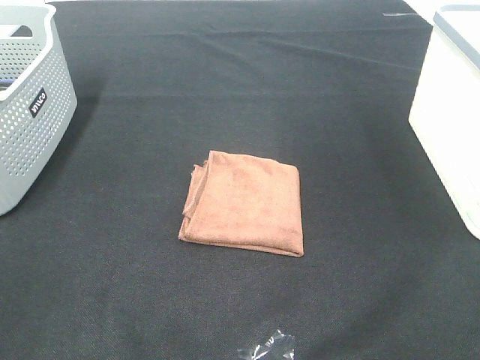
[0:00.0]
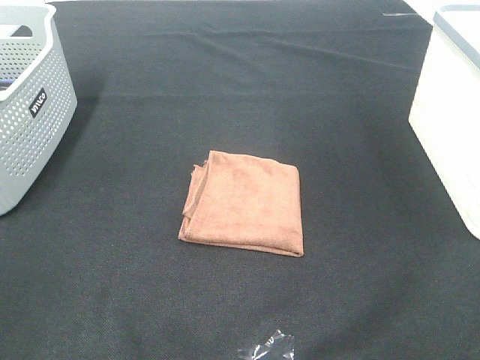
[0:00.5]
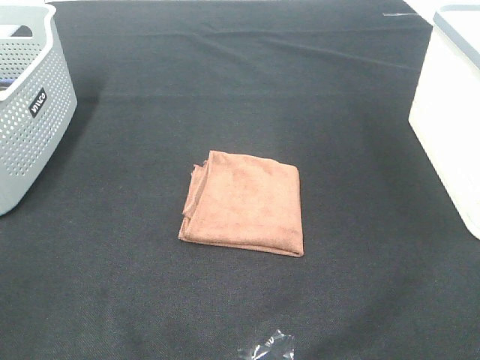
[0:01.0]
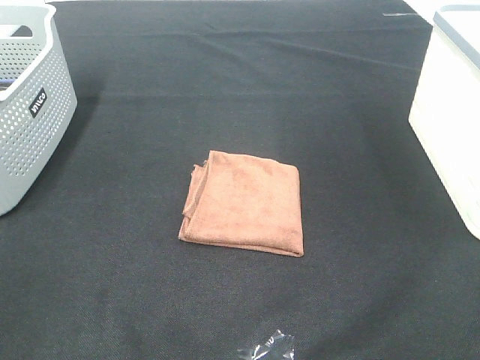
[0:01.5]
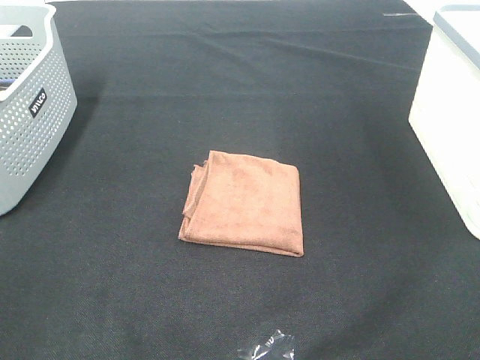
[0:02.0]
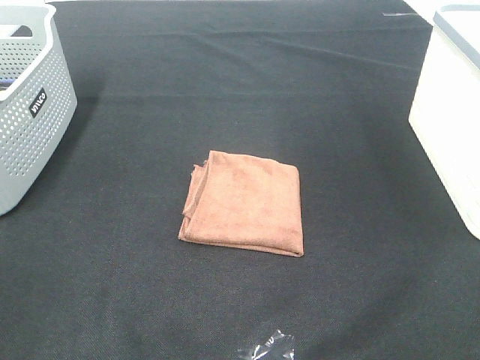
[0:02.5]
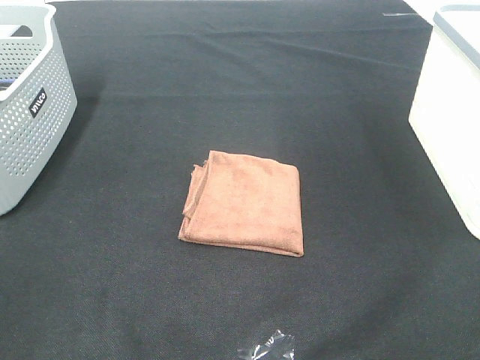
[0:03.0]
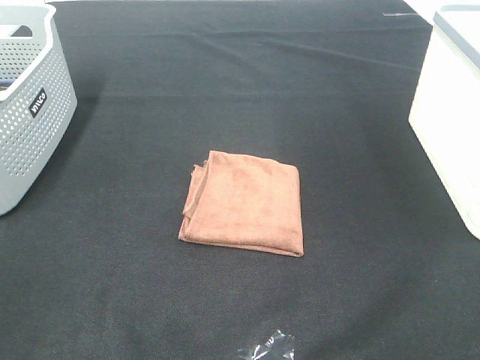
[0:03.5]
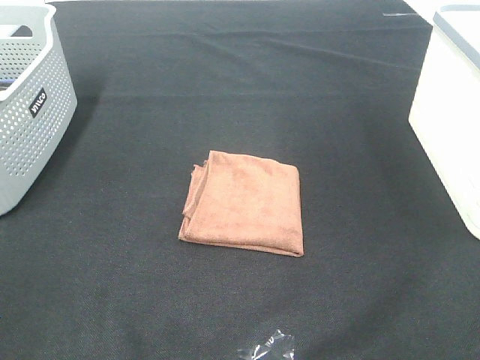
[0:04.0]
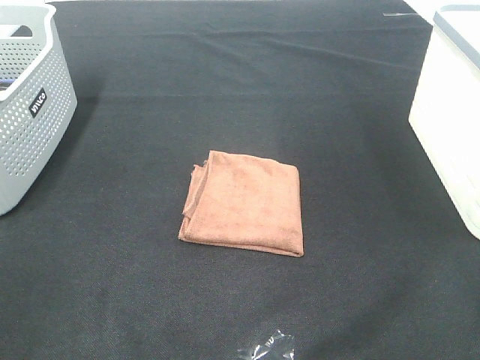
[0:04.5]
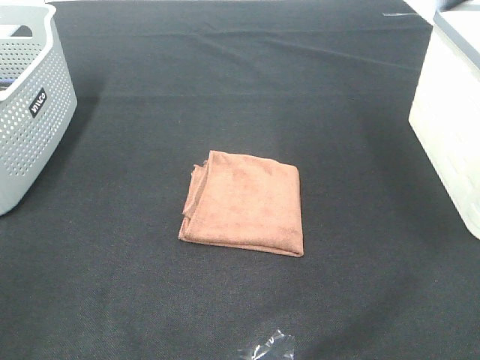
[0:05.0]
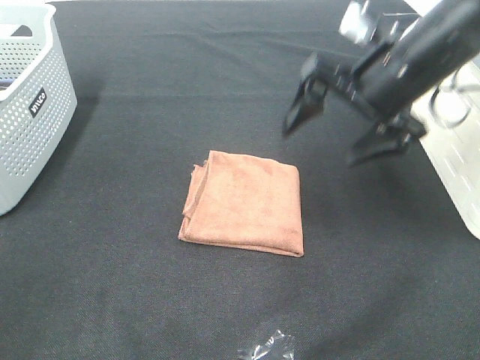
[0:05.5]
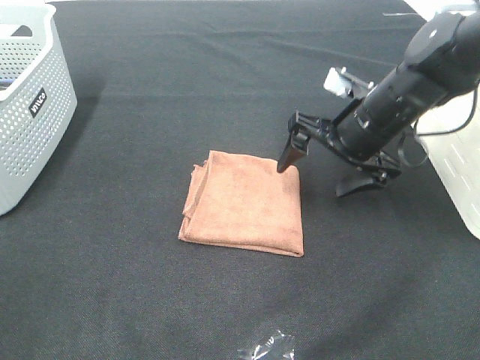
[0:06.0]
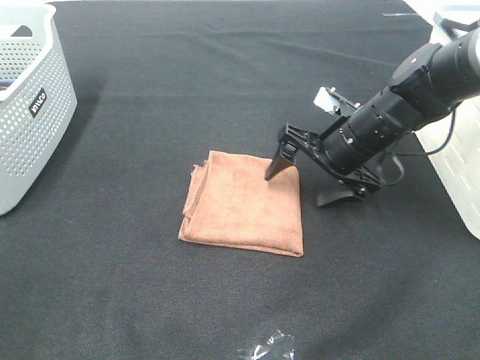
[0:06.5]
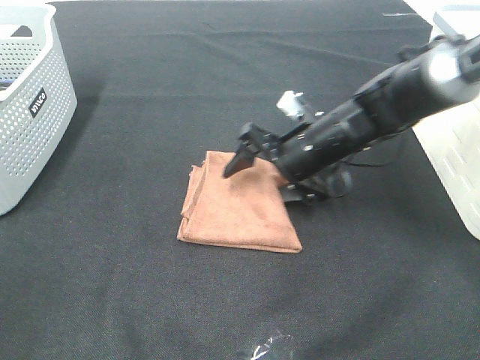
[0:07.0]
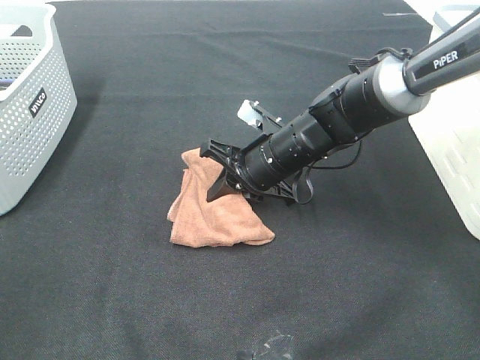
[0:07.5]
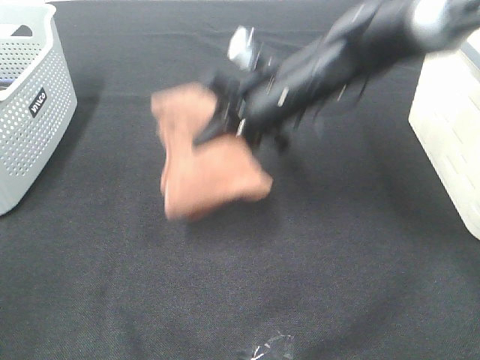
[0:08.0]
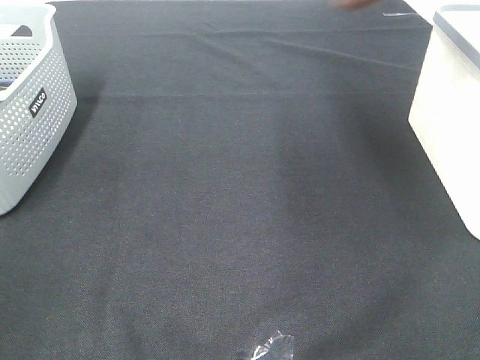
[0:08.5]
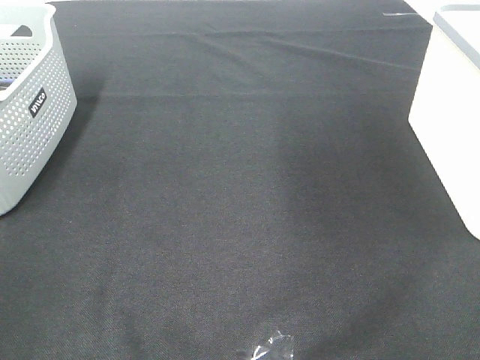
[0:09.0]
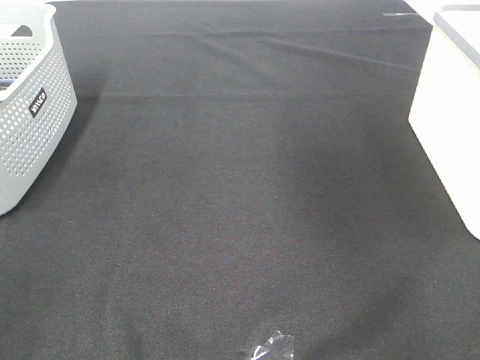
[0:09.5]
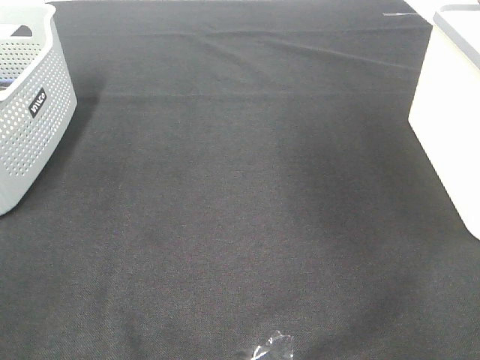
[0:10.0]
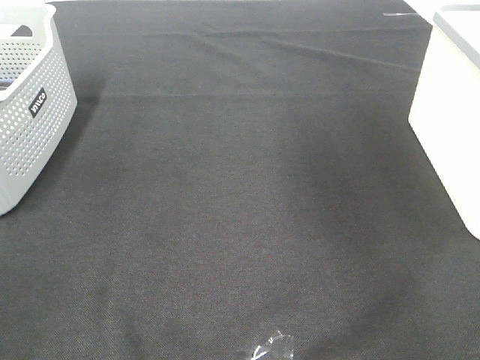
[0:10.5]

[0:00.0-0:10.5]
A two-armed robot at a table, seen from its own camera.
Step, 0.0 to 7.5 s: Right hand: grab the folded brown towel.
Step, 8.0 to 10.5 s: Right hand: place the brown towel in right basket.
0.0 to 2.0 s: Neither gripper changes place.
4.0 to 6.5 s: The right gripper goes approximately 40 cm forward, downward and to the left.
6.5 to 8.5 s: The right gripper moves upward, about 35 cm, and closes up.
8.5 to 10.5 s: The right gripper heads to the right, downward and forward, covering roughly 15 cm, and opens.

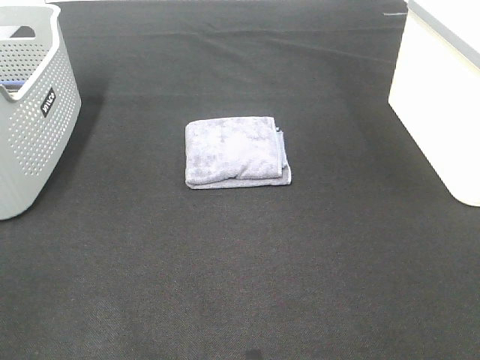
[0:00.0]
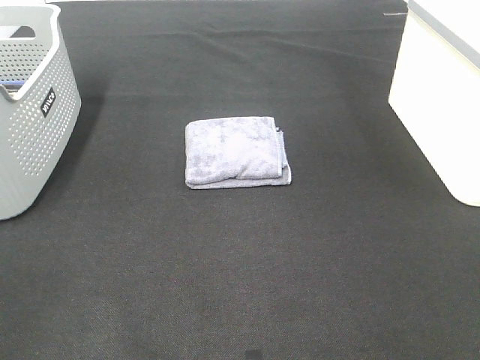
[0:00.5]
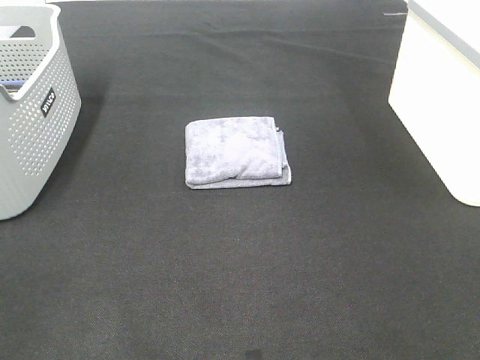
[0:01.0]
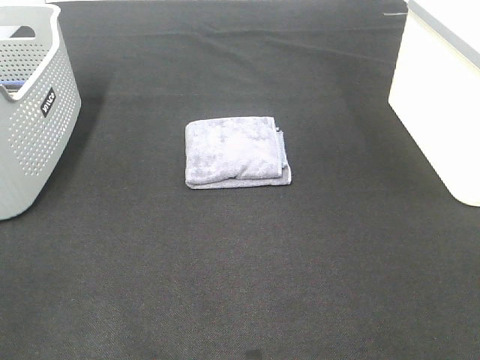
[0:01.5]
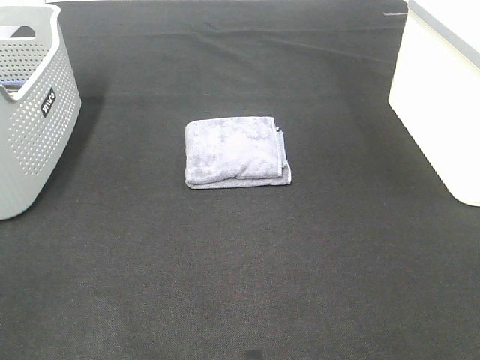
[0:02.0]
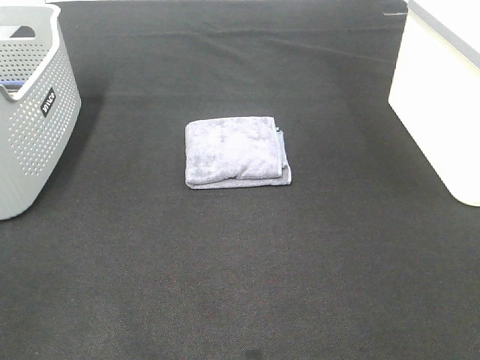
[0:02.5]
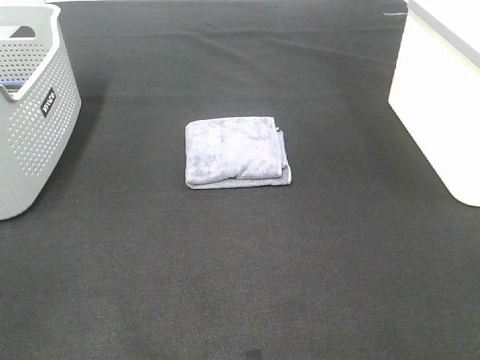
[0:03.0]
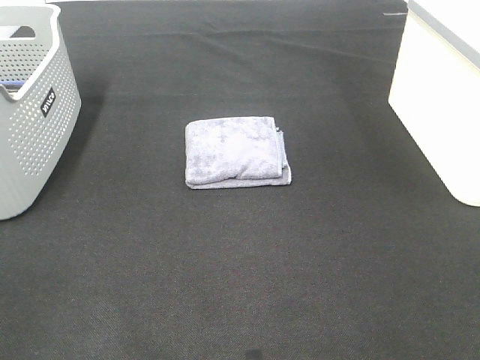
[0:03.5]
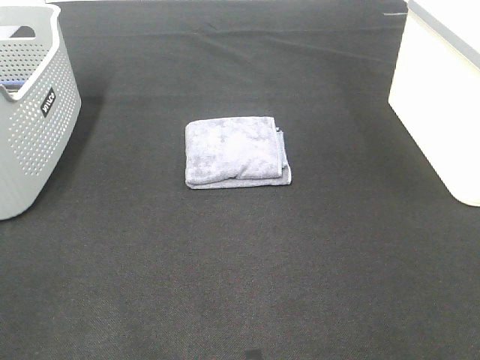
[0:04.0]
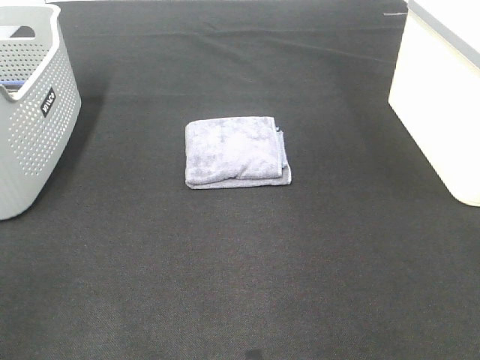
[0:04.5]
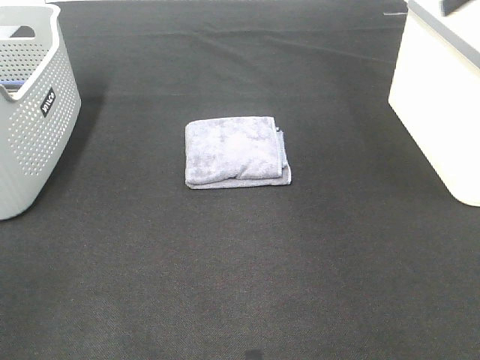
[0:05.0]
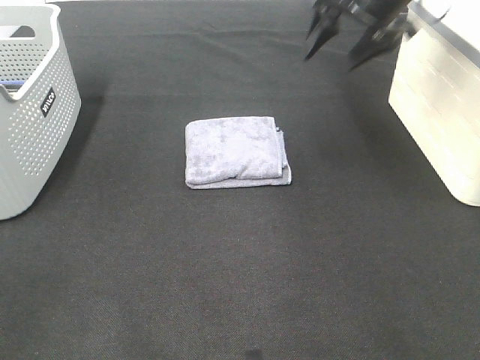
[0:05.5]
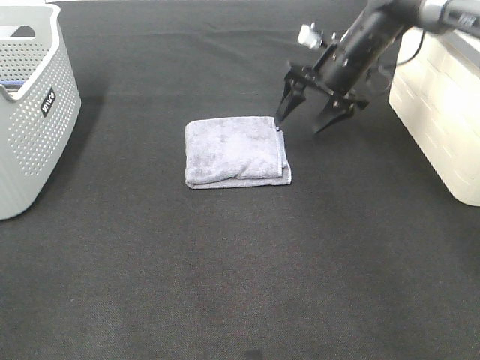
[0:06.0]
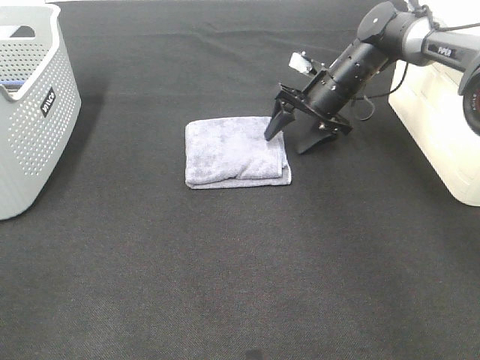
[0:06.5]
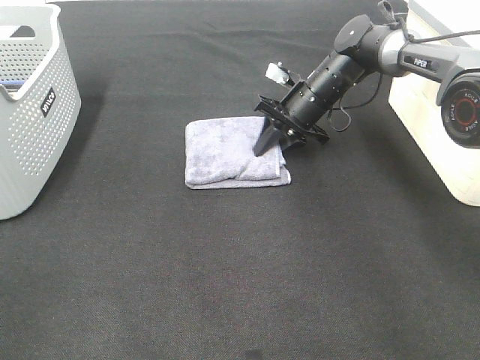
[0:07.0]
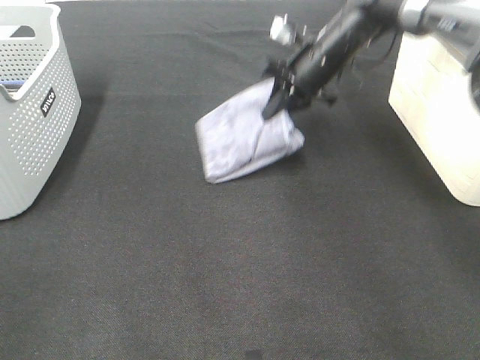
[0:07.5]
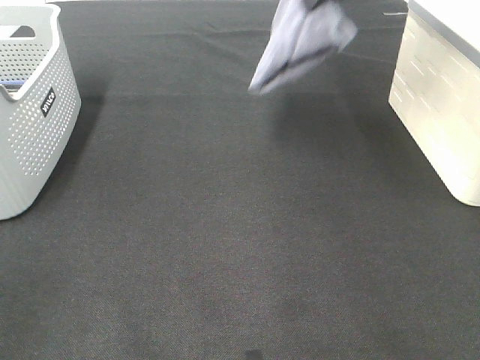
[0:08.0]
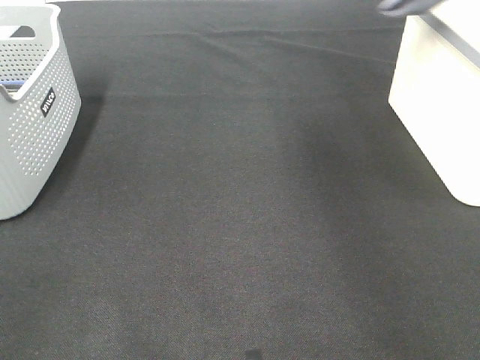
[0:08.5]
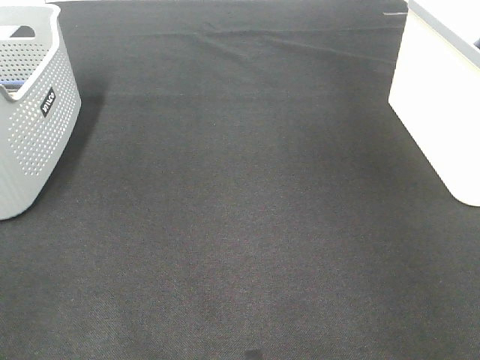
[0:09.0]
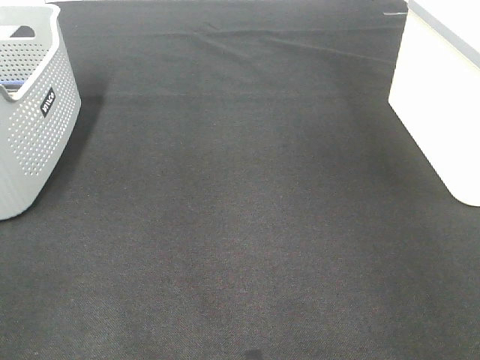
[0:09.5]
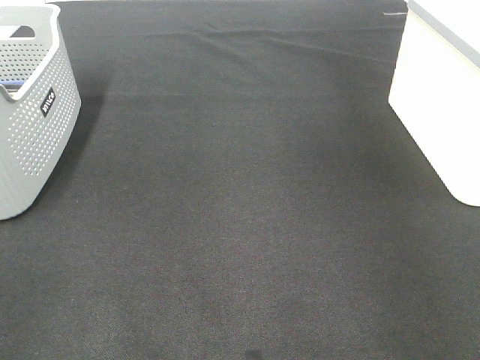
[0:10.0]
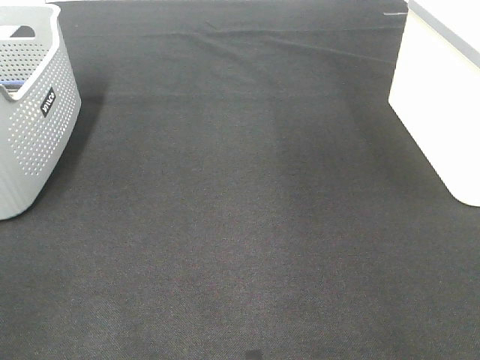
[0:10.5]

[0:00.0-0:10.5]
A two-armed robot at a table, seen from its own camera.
Step, 0.0 to 7.0 s: Right hand: grab the folded grey towel.
Step, 7.5 to 9.5 s: Right hand: place the grey towel in right basket.
0.0 to 2.0 s: Both grippers stay put.
4.0 to 6.5 s: The right gripper moves forward and downward, about 50 cm.
6.5 to 8.5 s: The right gripper heads upward and to the right, covering approximately 35 cm, and closes.
8.5 to 10.5 s: The right gripper goes some 5 cm to the left, and opens its fingers.

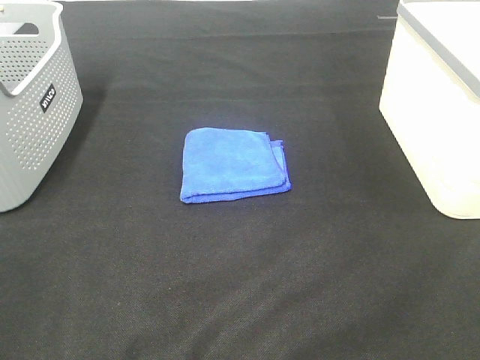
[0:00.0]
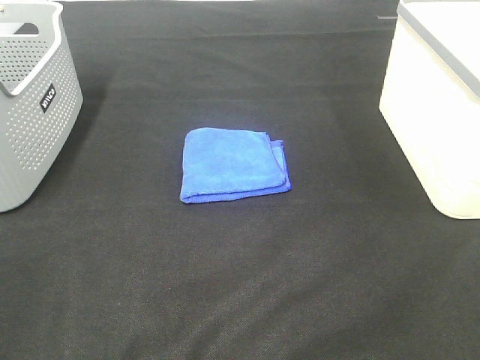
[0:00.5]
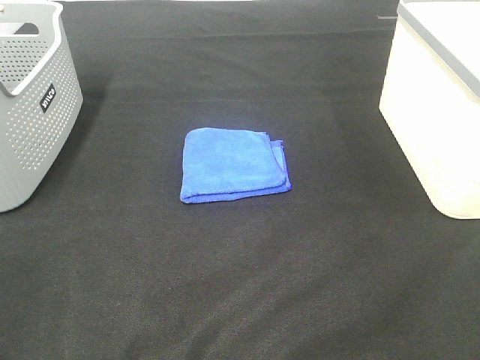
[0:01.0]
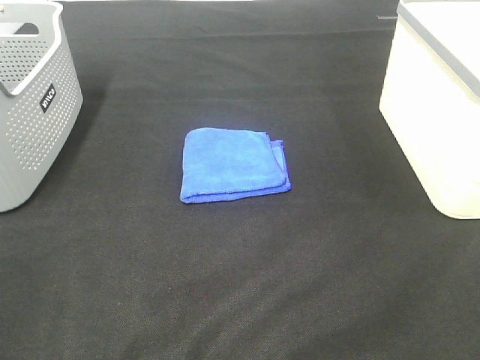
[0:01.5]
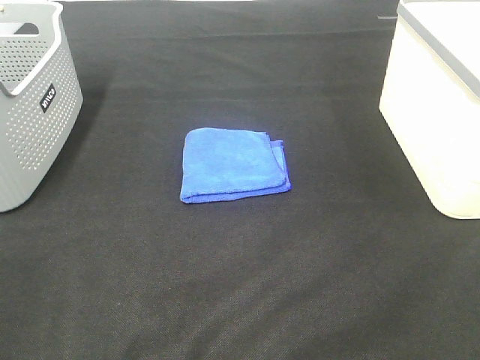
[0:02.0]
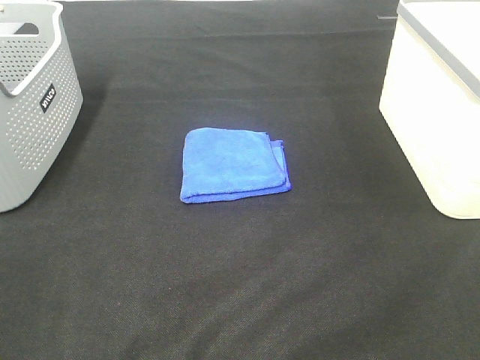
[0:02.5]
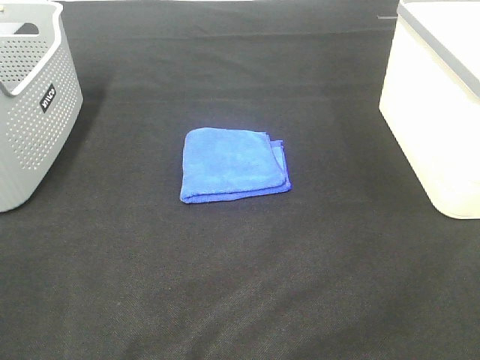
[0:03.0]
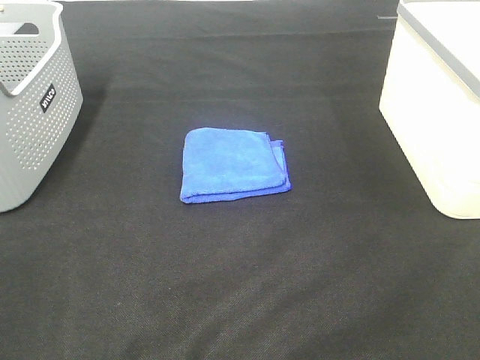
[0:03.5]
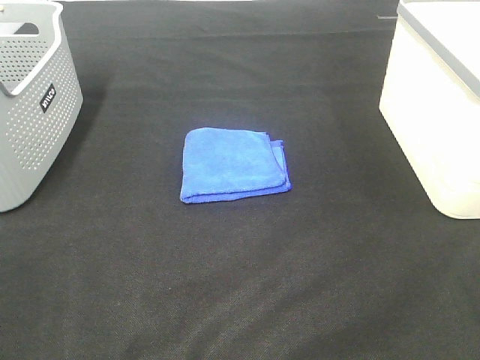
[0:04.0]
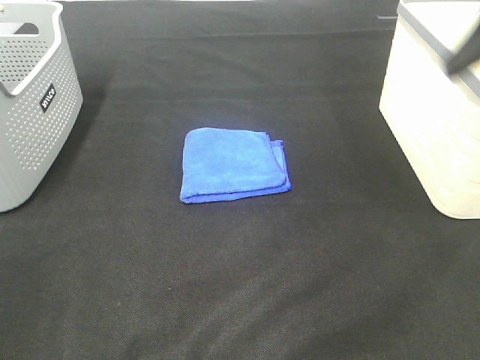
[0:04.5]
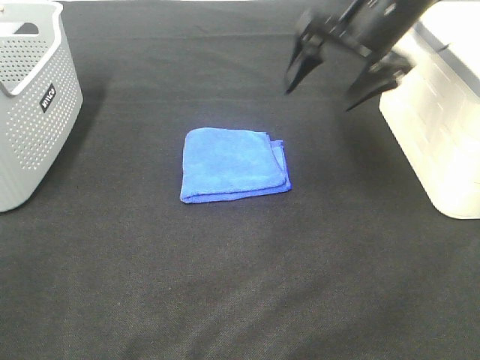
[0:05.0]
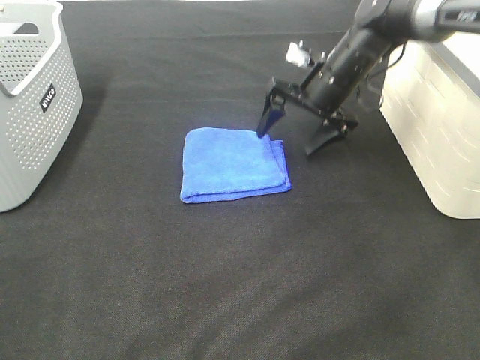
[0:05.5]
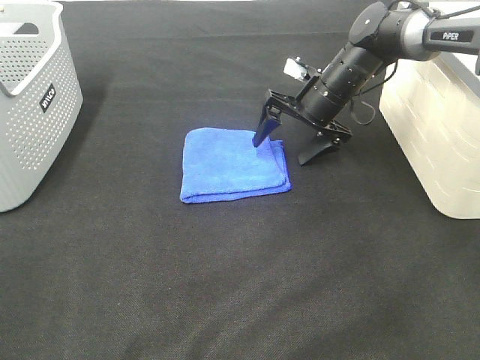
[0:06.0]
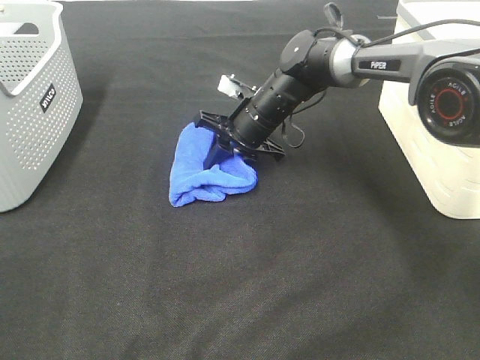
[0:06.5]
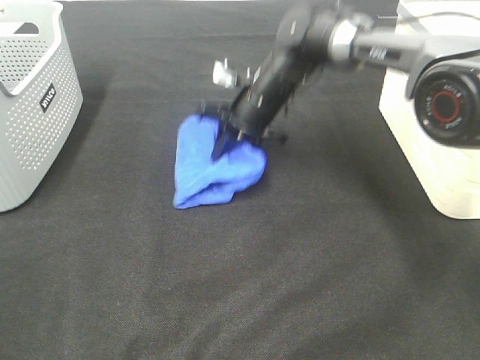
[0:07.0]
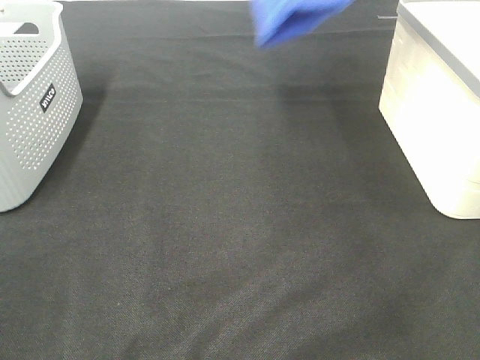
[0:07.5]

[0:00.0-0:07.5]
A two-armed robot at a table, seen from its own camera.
Step, 0.0 to 6.5 s: Right hand: grab the folded blue towel.
0.0 to 2.0 s: The two grippers keep their place.
4.0 to 5.5 s: The right gripper is displaced forward and downward by approximately 40 cm.
5.5 to 7.5 s: The right gripper travels upward by some 25 cm, and closes up.
